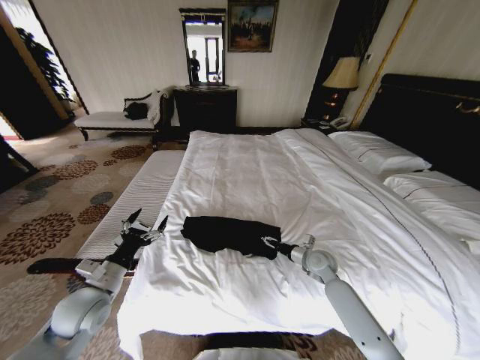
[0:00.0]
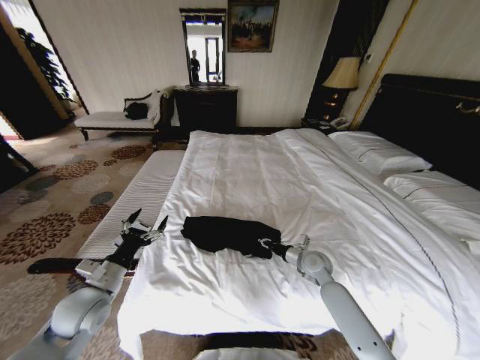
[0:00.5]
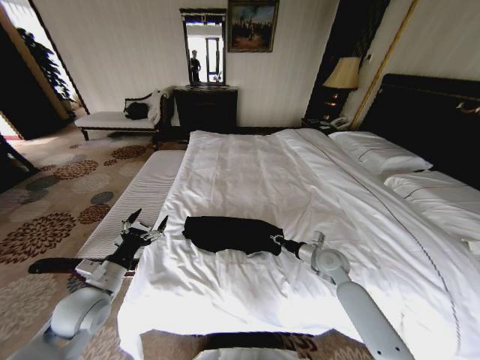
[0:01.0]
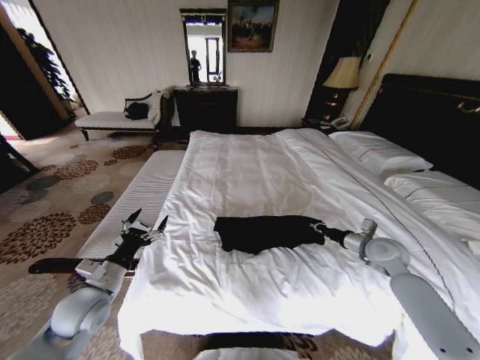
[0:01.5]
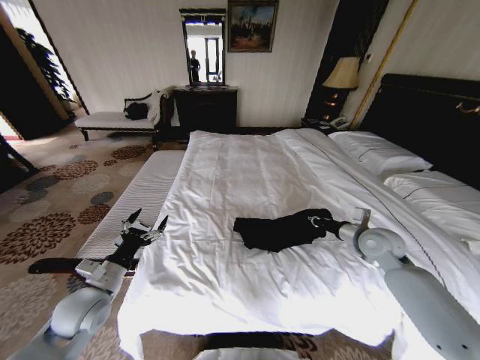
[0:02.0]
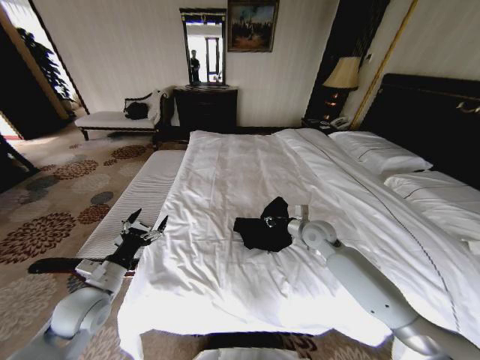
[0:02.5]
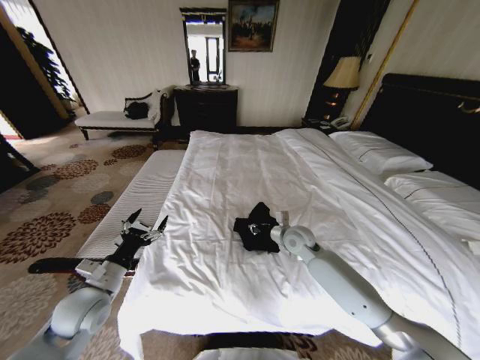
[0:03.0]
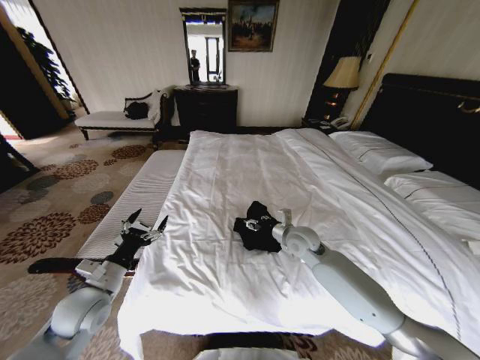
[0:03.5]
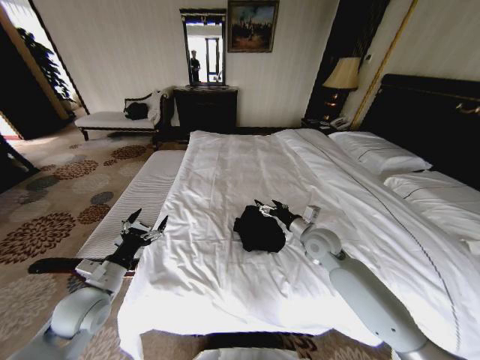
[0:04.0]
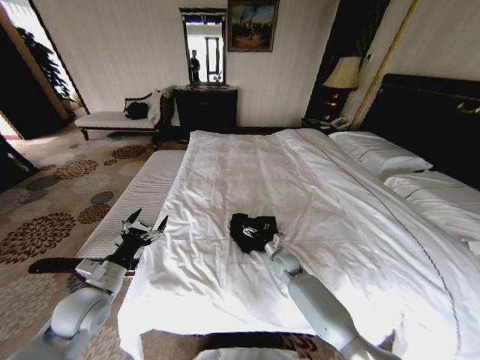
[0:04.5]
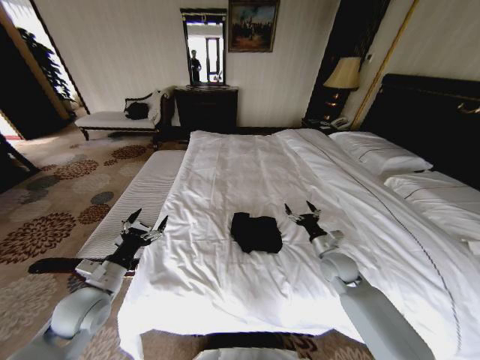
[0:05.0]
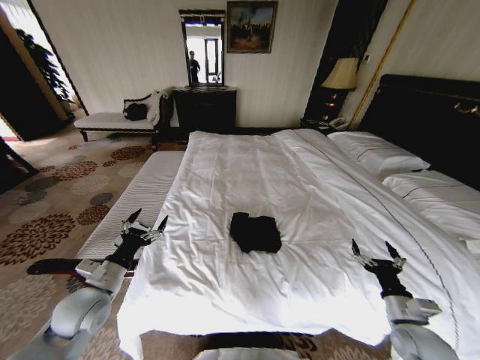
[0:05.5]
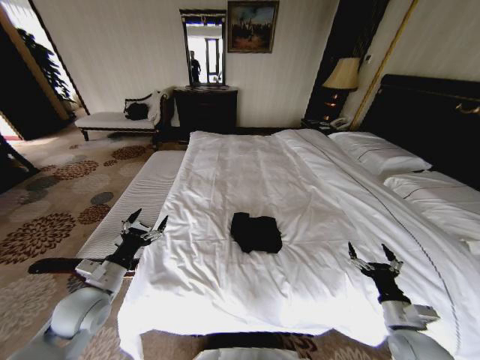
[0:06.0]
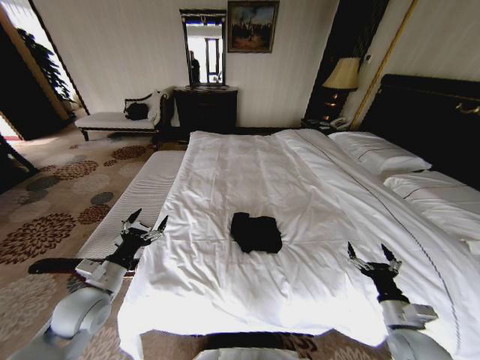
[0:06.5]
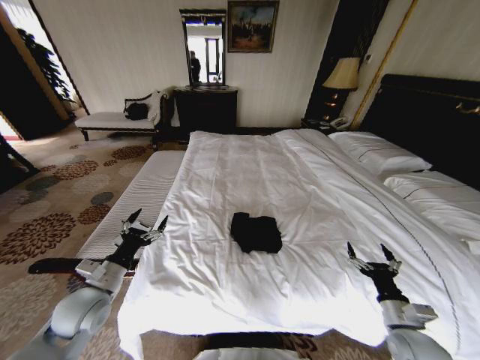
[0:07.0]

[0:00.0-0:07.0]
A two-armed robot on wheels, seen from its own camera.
Task of the whole recording: Fold the clothes on the bed.
0:00.0 to 0:02.0: The right gripper goes some 20 cm upward and to the right, and closes its fingers.
0:02.0 to 0:03.5: The right gripper travels to the left by about 20 cm, and opens.
0:03.5 to 0:05.0: The right gripper travels to the right and downward by approximately 15 cm, and opens its fingers.
0:05.0 to 0:07.0: The right gripper is displaced backward and to the right by some 25 cm.

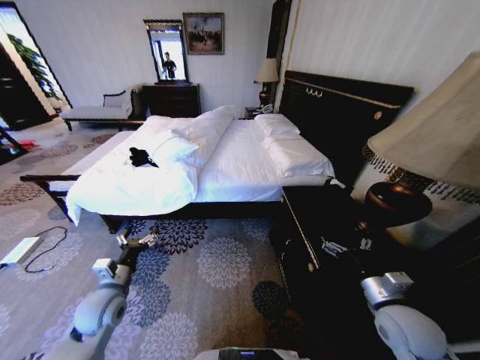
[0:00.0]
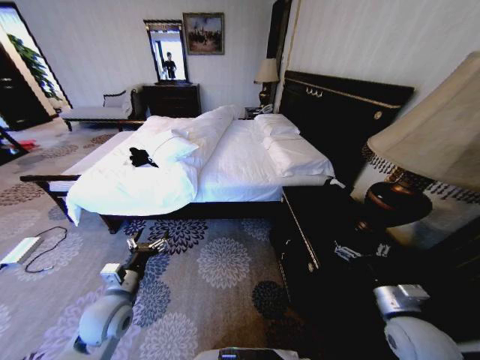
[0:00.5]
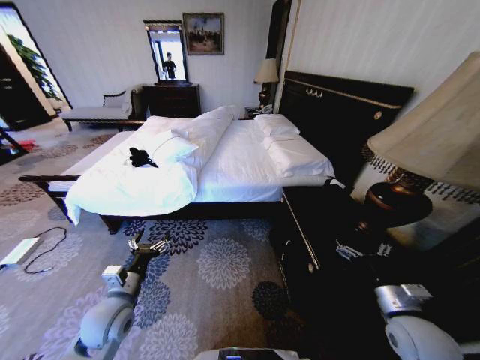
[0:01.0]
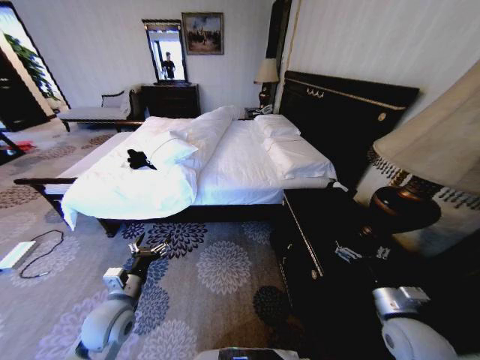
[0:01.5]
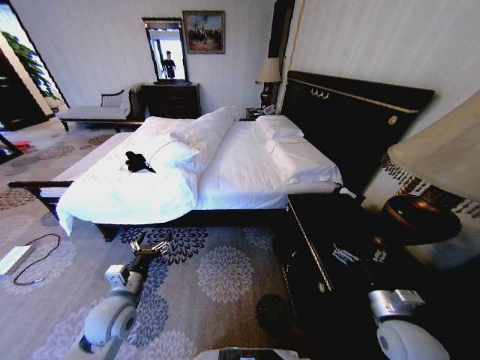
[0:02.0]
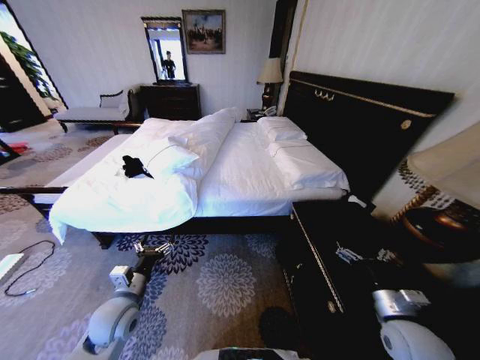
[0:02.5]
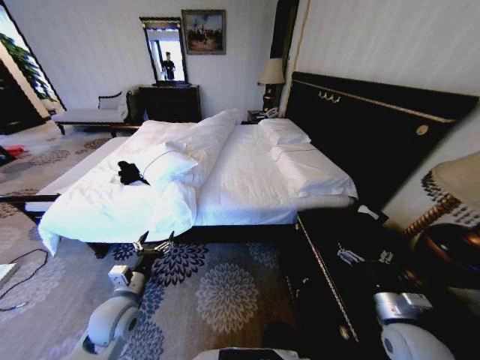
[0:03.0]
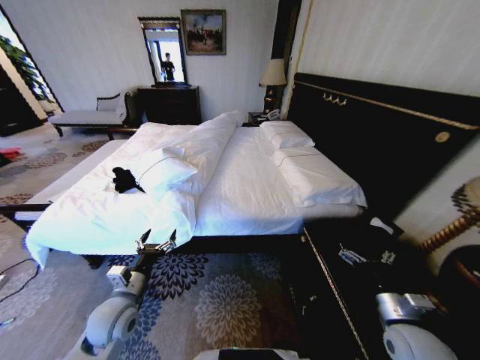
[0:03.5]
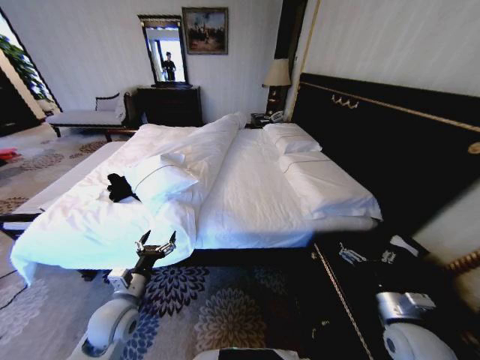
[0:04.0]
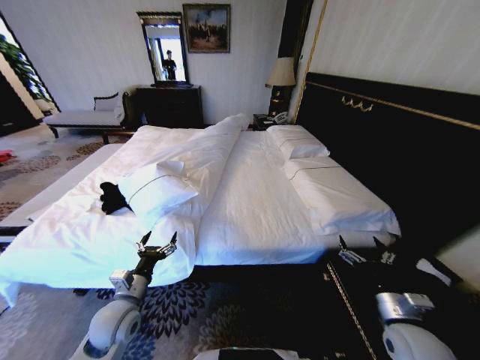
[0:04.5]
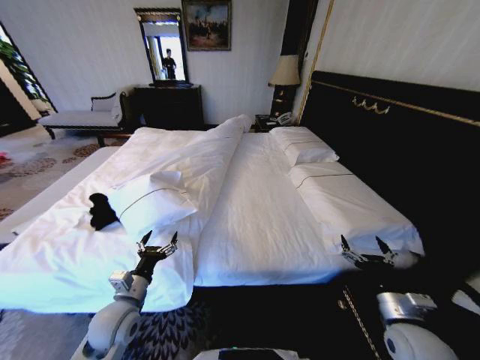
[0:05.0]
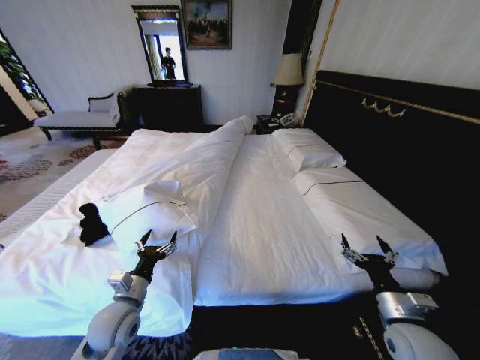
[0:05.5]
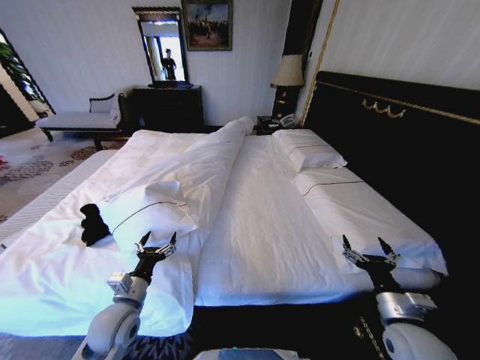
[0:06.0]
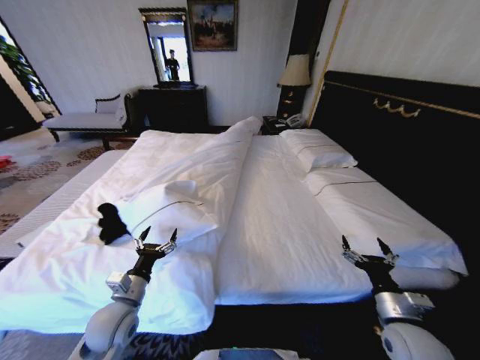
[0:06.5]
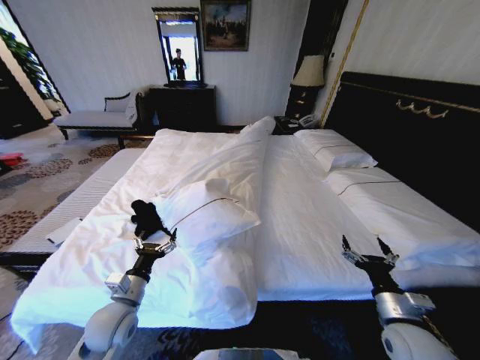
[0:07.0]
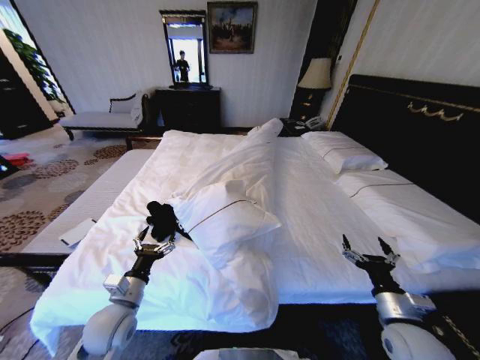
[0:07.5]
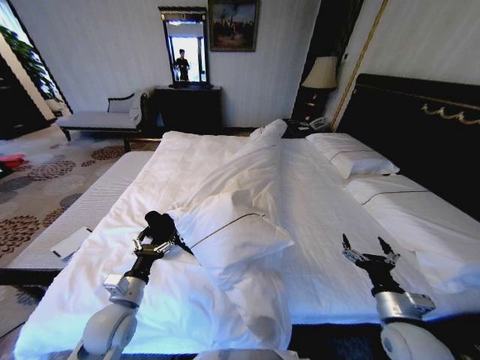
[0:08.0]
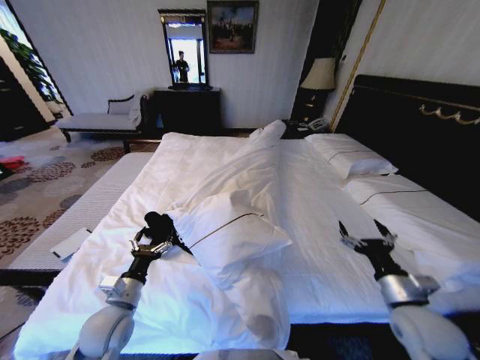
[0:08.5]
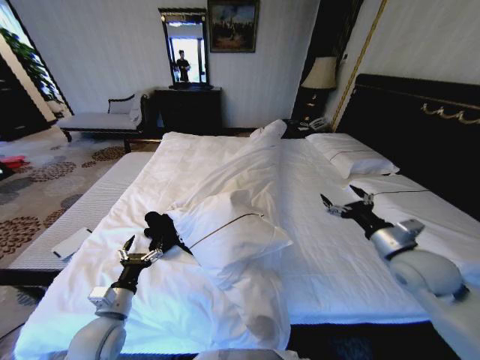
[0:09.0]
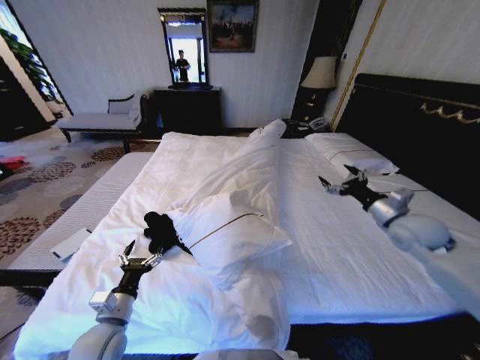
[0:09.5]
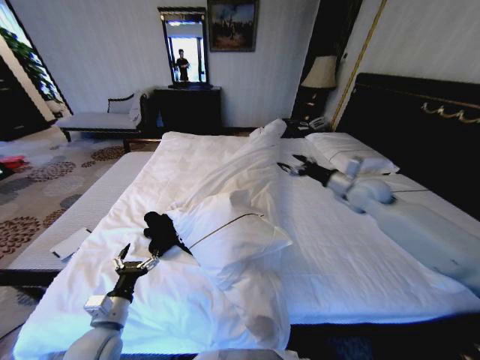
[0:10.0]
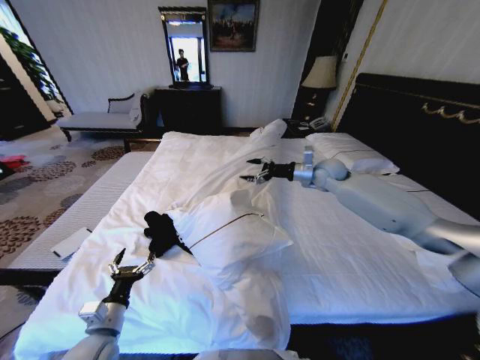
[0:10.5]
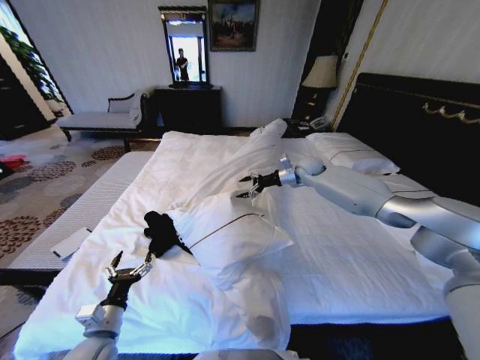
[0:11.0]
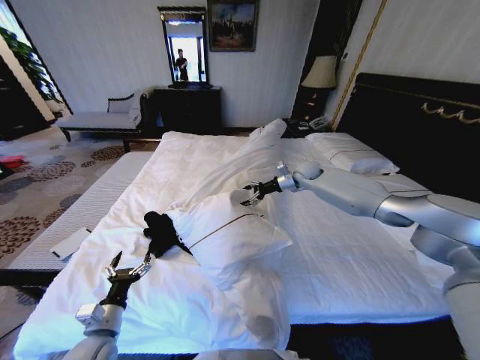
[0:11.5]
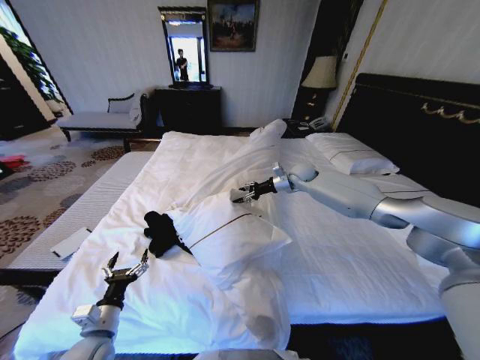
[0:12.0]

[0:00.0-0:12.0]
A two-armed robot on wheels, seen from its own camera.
Task of the whole recording: Fold the clothes on the bed.
0:08.0 to 0:10.0: The left gripper ends up some 5 cm from where it was, while the right gripper moves forward and upward, some 35 cm.
0:10.0 to 0:12.0: The right gripper moves forward and to the left, roughly 20 cm, and closes.

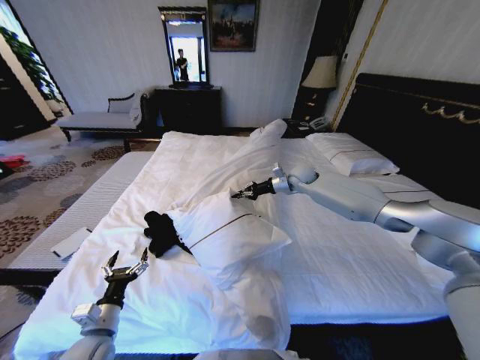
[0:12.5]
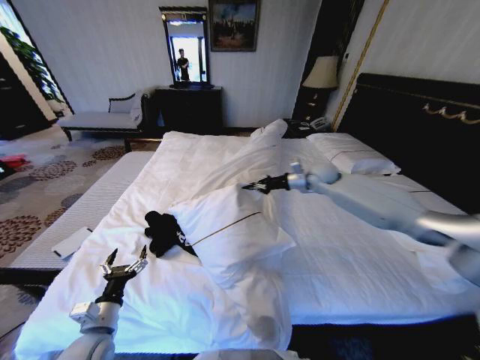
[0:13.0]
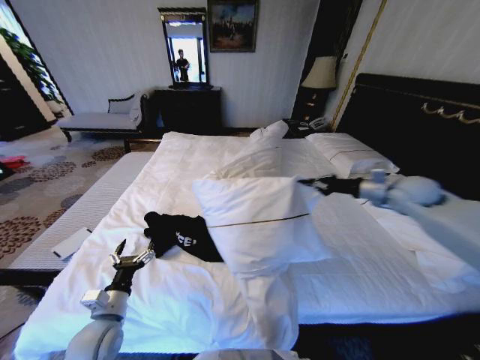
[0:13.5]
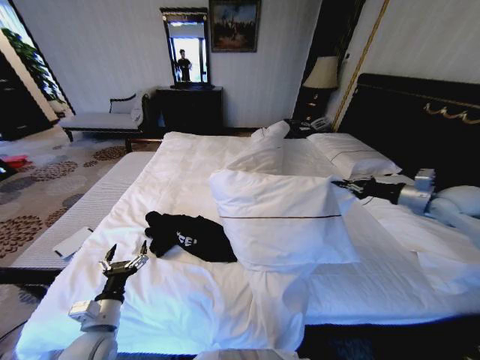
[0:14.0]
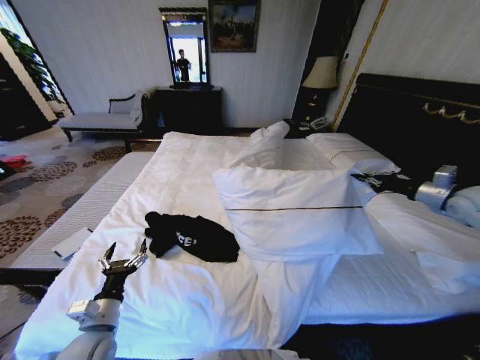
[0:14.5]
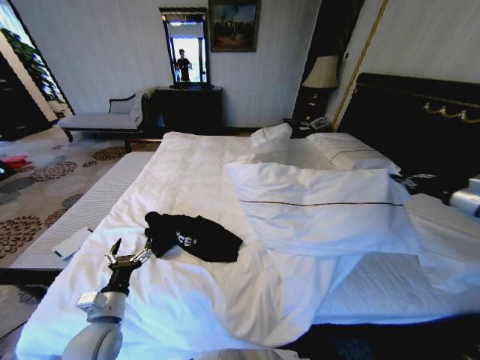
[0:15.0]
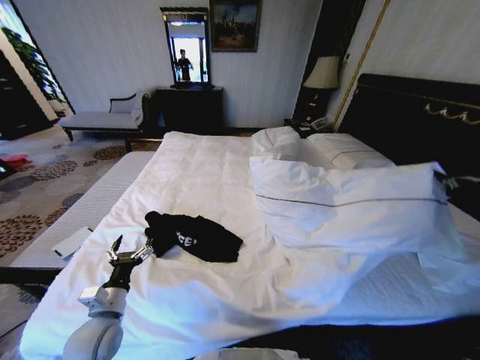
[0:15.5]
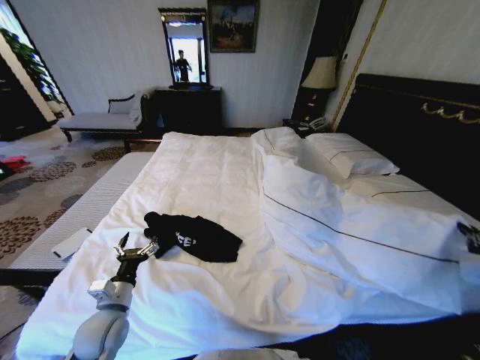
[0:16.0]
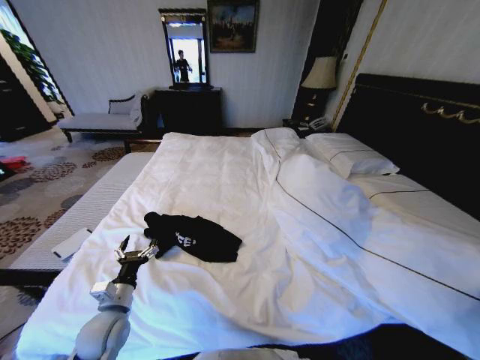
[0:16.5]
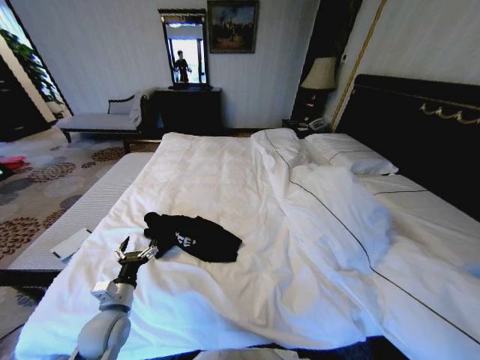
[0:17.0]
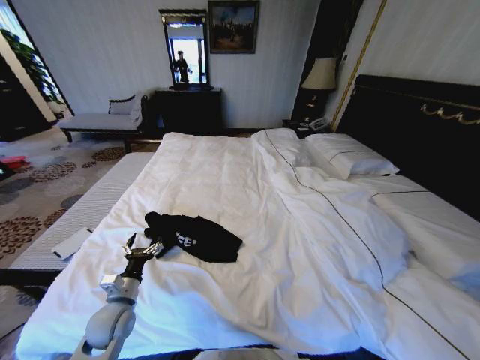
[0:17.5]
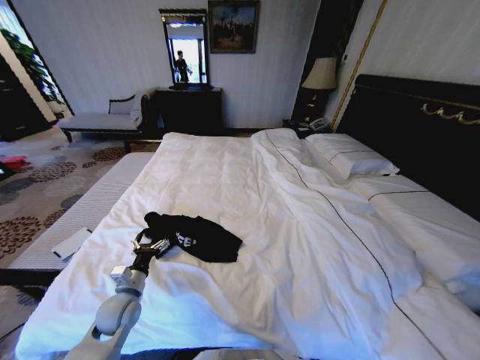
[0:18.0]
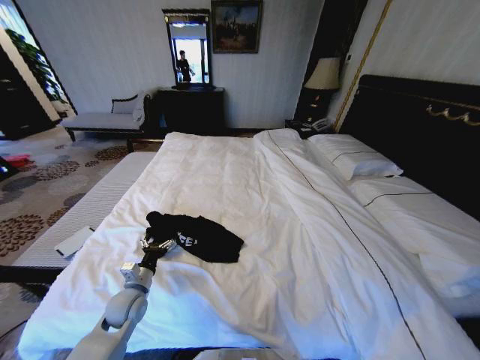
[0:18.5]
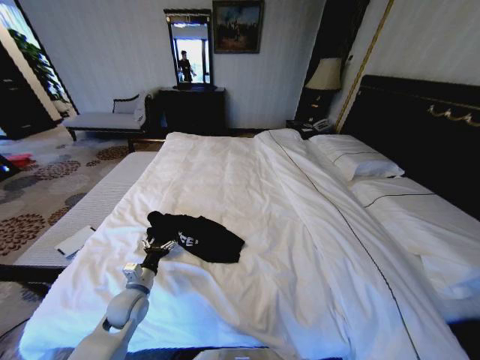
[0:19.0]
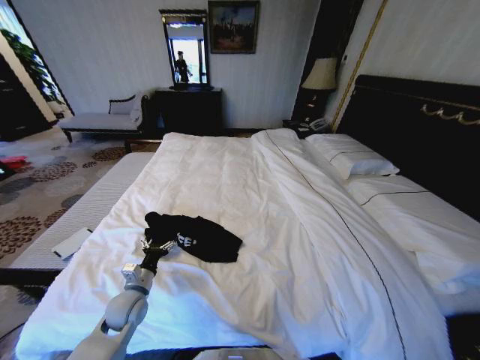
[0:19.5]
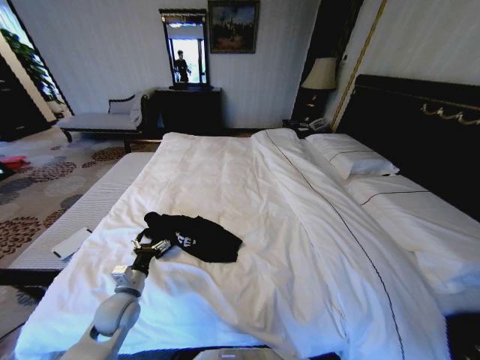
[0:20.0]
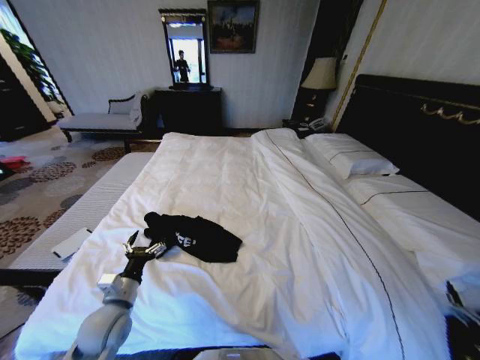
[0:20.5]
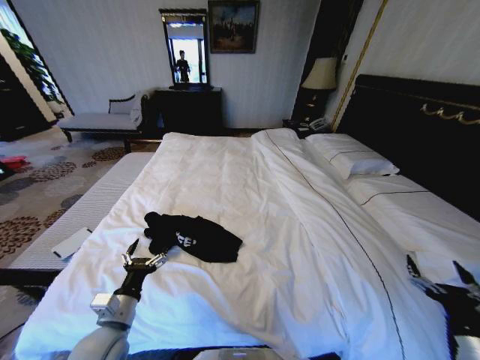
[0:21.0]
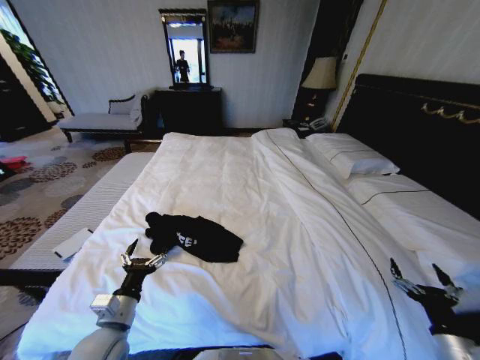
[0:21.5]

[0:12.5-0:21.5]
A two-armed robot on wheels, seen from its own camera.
Task of the whole recording: Fold the clothes on the bed.
0:12.5 to 0:14.5: The right gripper moves to the right and backward, about 40 cm.
0:14.5 to 0:17.0: The right gripper travels backward and downward by some 50 cm.
0:17.0 to 0:19.5: The left gripper is displaced forward by approximately 5 cm, while the right gripper goes about 30 cm downward, backward and to the left.
0:19.5 to 0:21.5: The left gripper goes some 10 cm backward and upward. Meanwhile the right gripper is displaced forward and upward by roughly 35 cm, and opens.
